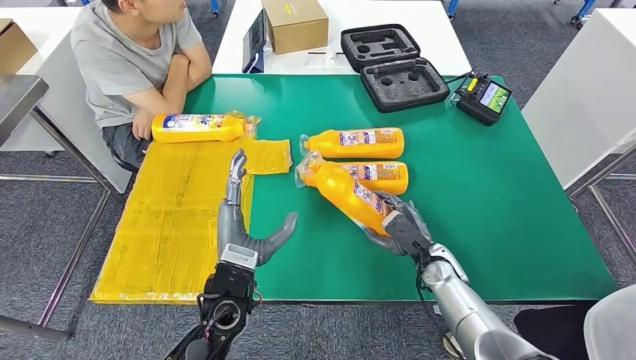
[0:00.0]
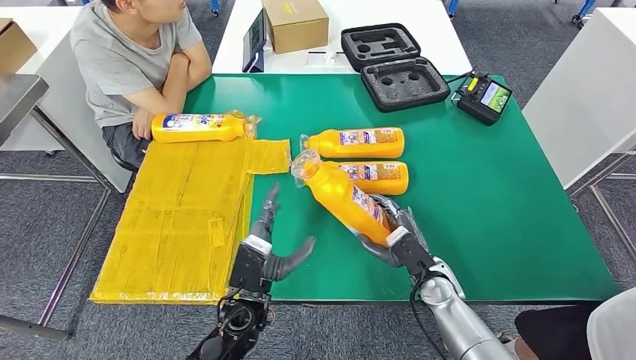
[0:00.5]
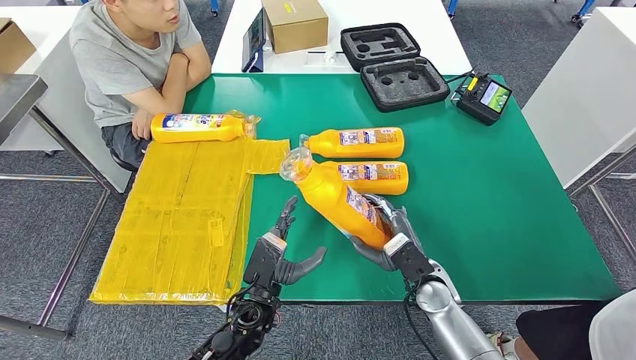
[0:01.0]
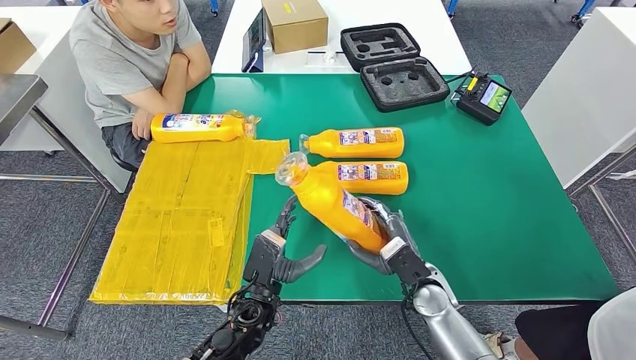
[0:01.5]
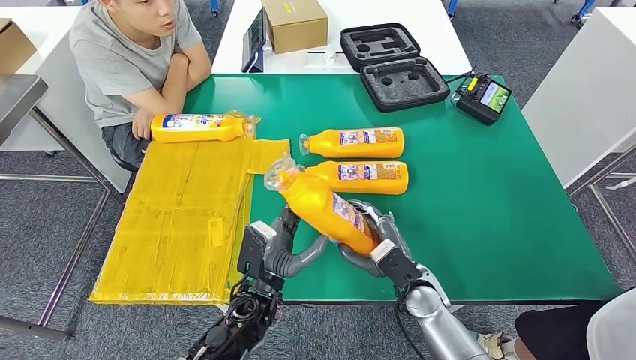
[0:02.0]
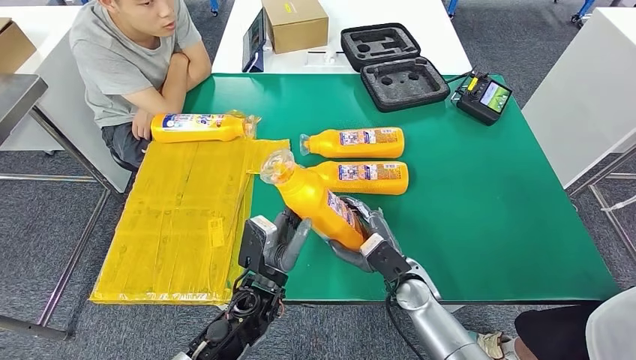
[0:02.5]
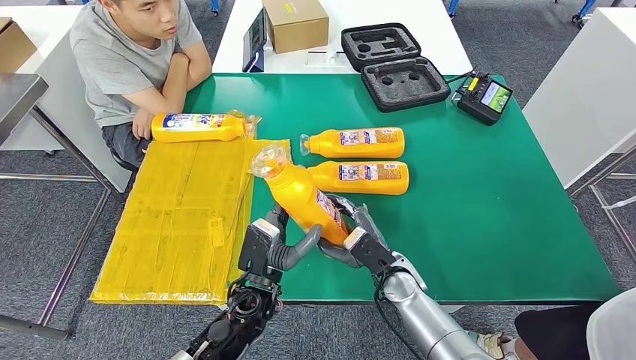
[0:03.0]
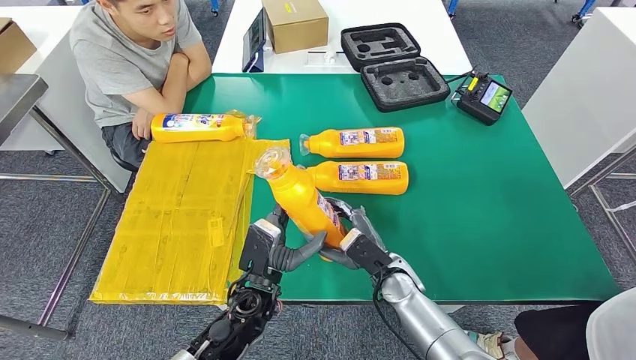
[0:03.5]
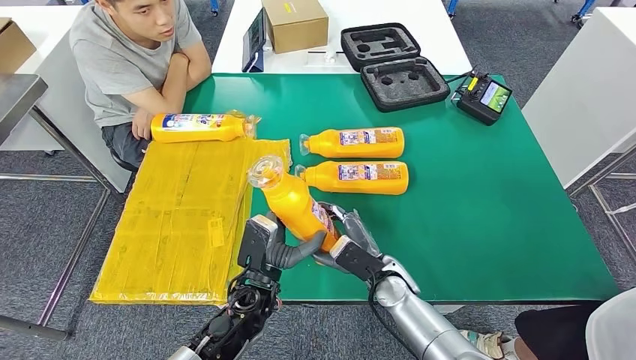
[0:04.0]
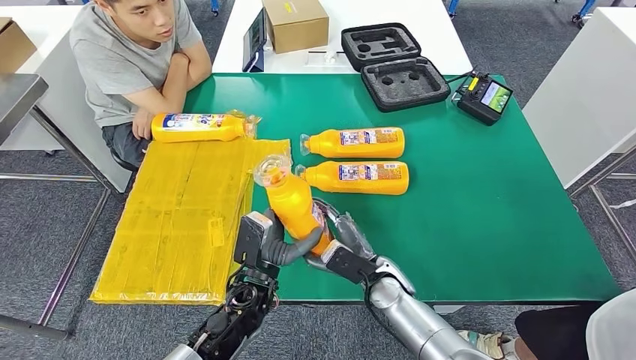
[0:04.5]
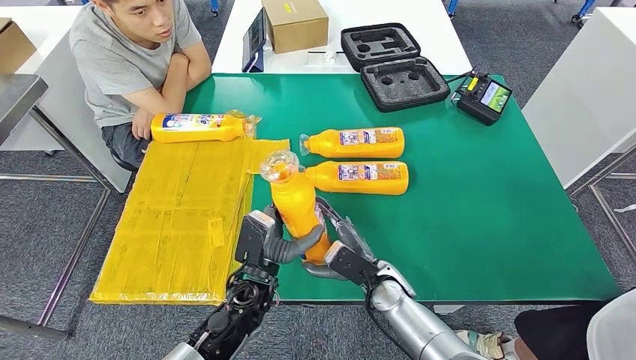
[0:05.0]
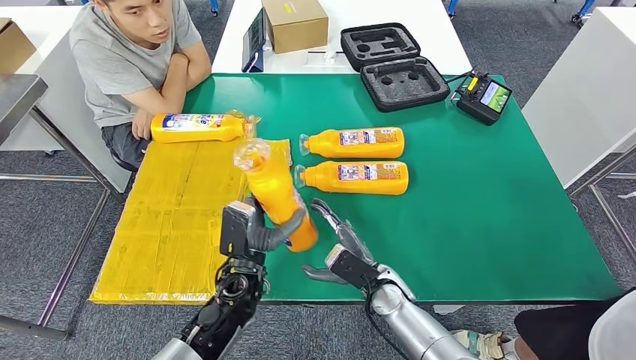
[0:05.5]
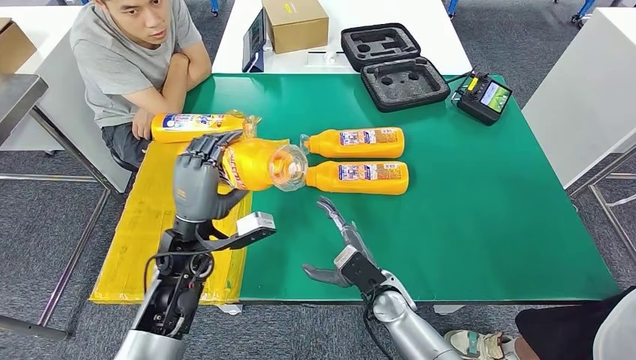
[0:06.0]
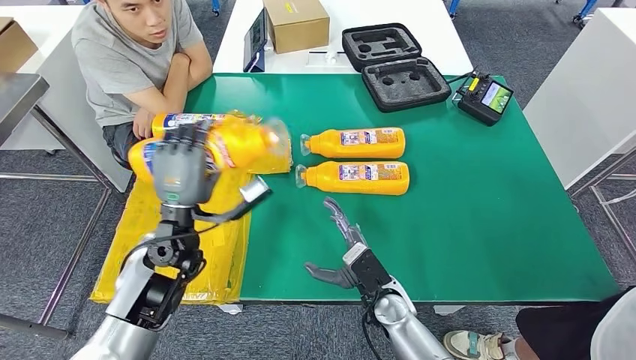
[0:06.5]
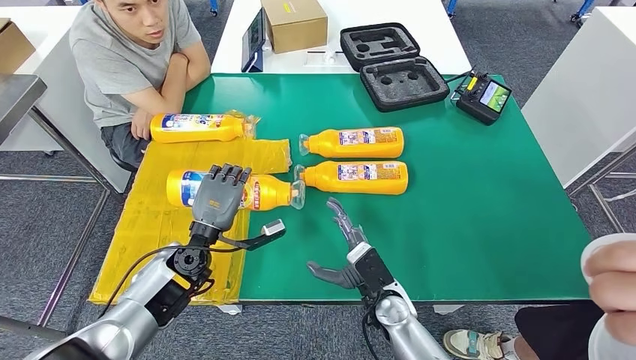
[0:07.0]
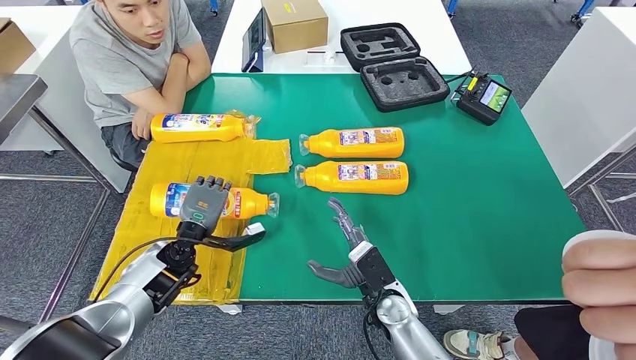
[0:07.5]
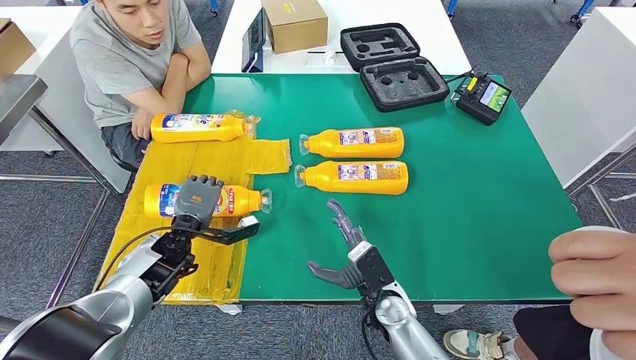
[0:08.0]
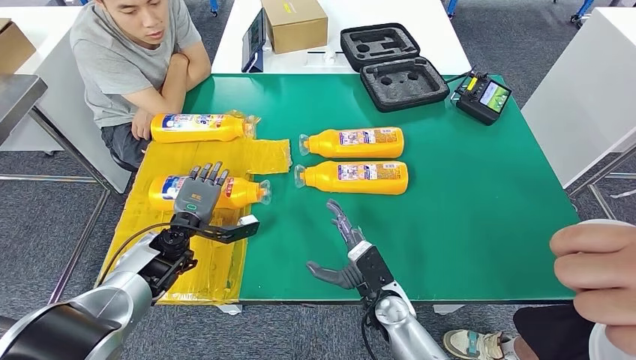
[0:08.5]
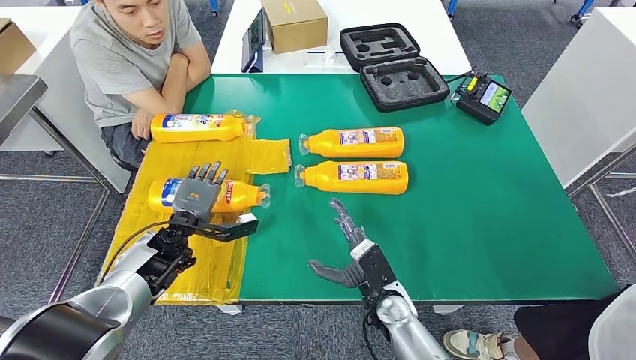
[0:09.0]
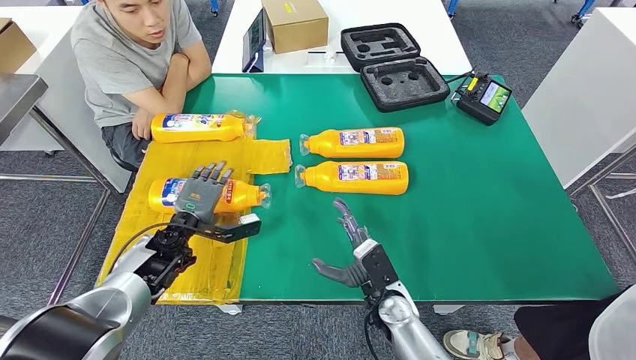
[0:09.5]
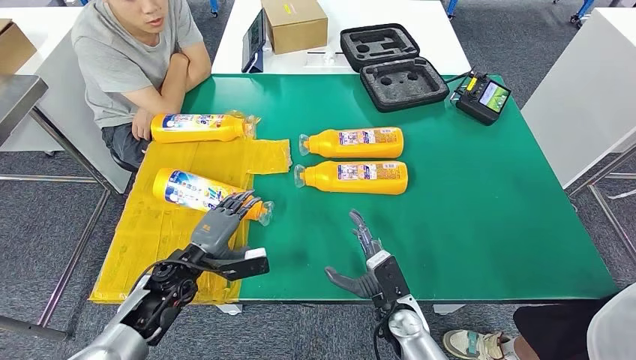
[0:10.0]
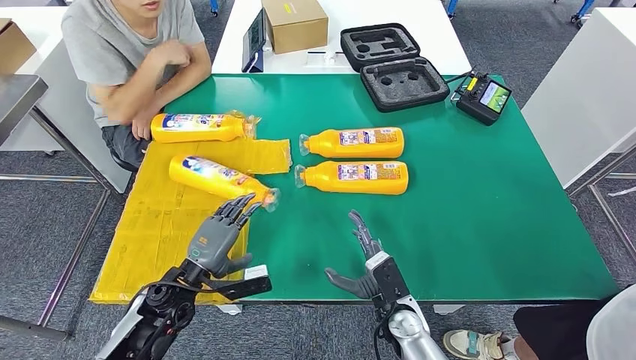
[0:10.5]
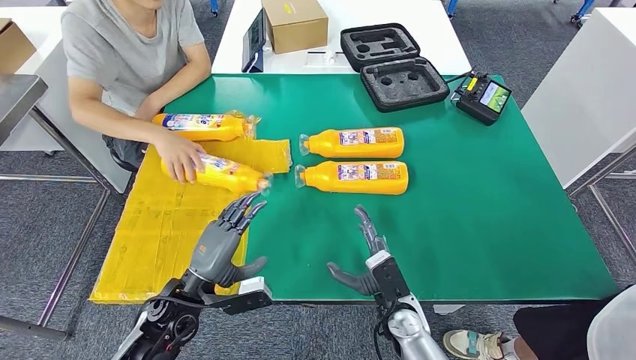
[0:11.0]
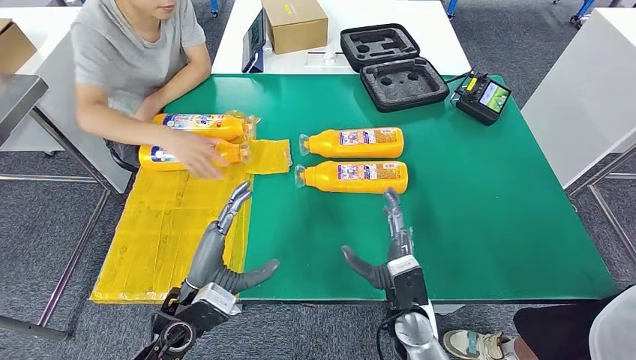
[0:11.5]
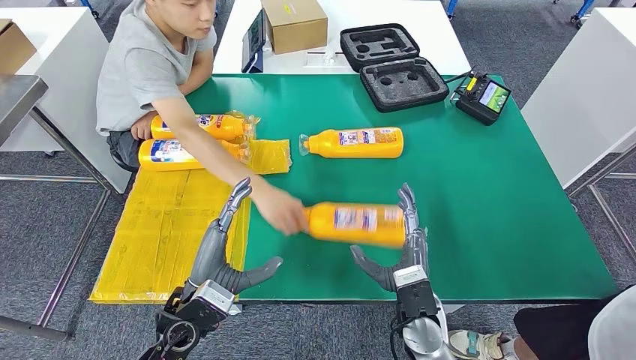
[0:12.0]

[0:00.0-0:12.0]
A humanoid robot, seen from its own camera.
Step, 0.0 to 5.0 s: Pick up the fast-moving consumer goods bottle from the table.
Step, 5.5 to 9.5 s: Flip the fast-moving consumer goods bottle to the front side.
0.0 to 2.0 s: The right hand changes place by about 5 cm; the left hand shifts roughly 5 cm downward.
2.0 to 4.0 s: The right hand shifts roughly 5 cm to the left.
4.0 to 6.0 s: The left hand shifts about 15 cm to the left and upward.
6.0 to 8.0 s: The left hand is displaced downward and forward by some 10 cm.
8.0 to 10.0 s: The left hand heads backward, covering about 5 cm.

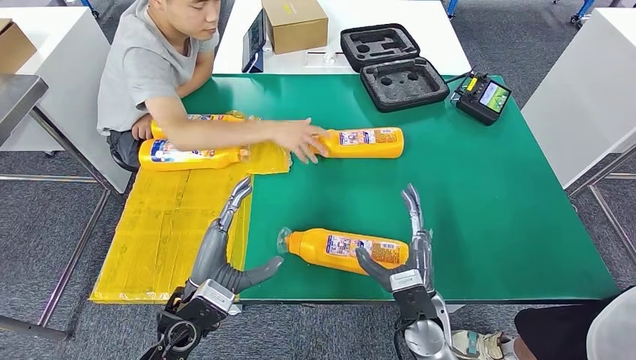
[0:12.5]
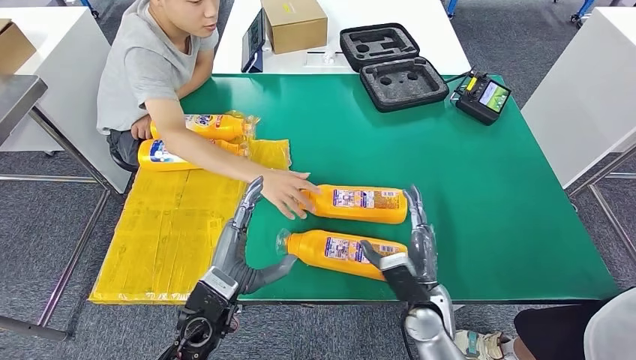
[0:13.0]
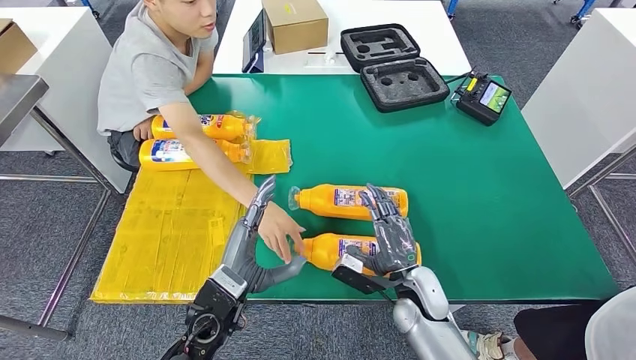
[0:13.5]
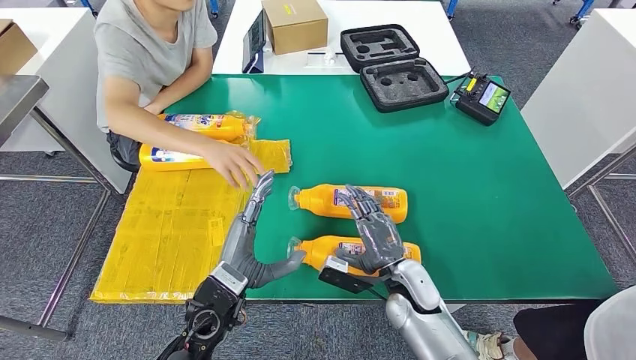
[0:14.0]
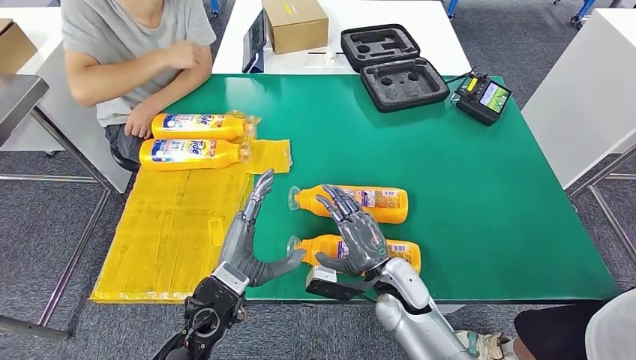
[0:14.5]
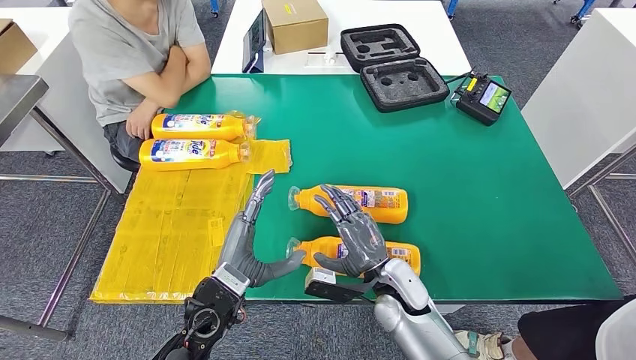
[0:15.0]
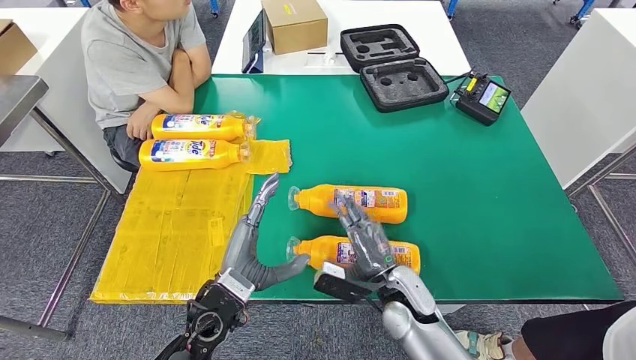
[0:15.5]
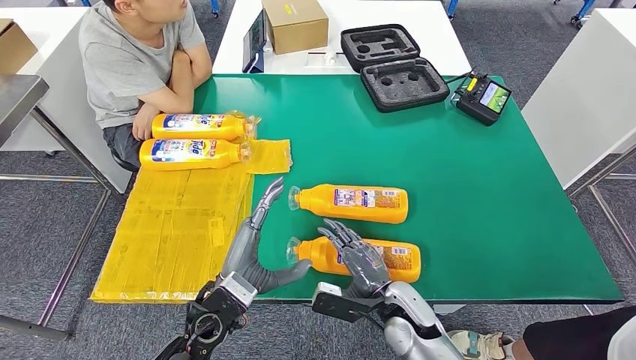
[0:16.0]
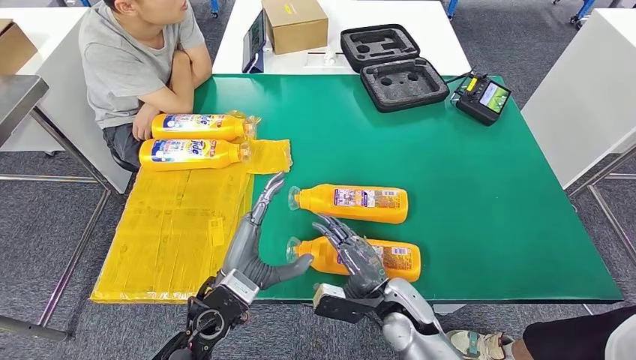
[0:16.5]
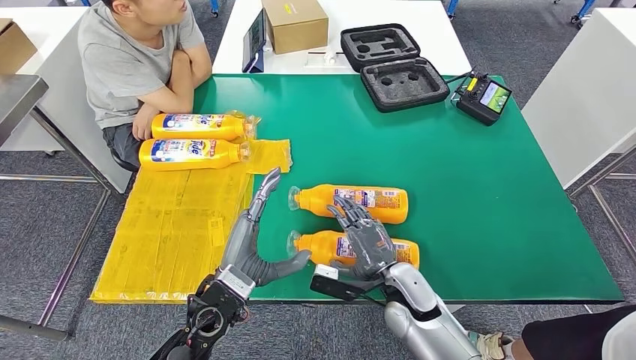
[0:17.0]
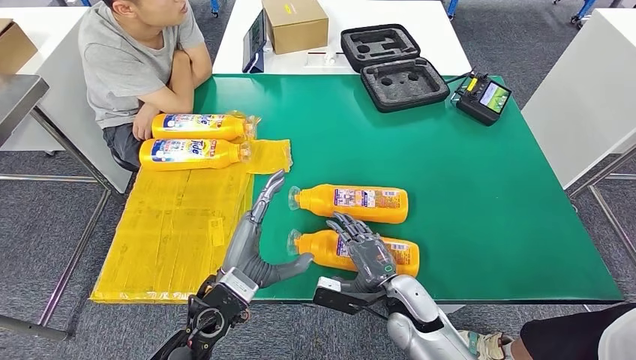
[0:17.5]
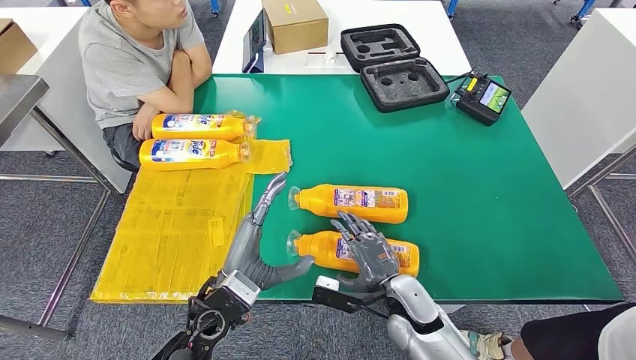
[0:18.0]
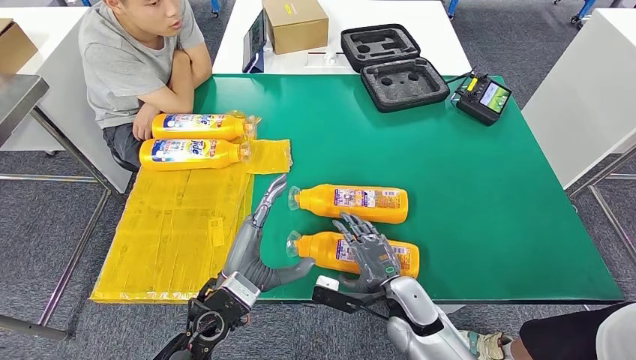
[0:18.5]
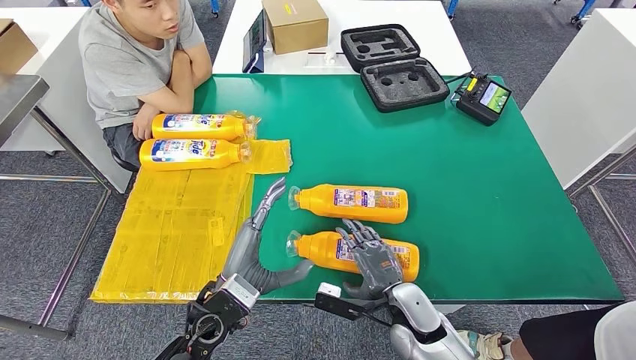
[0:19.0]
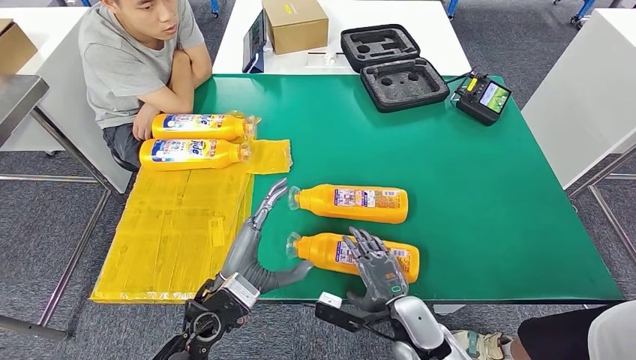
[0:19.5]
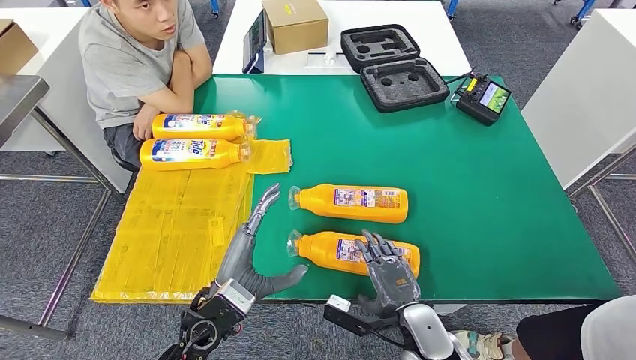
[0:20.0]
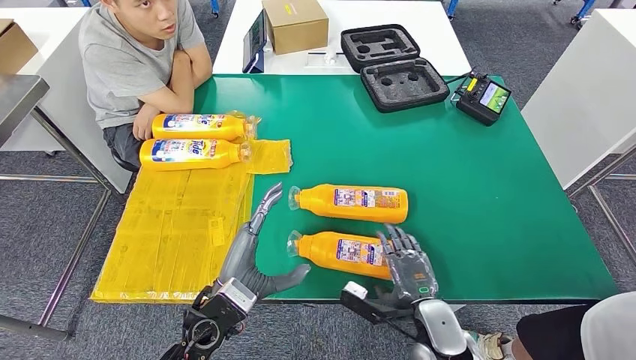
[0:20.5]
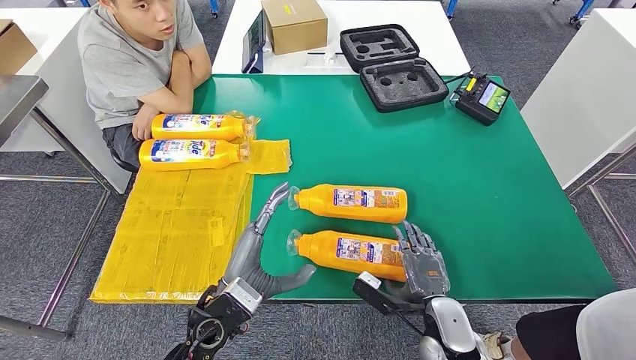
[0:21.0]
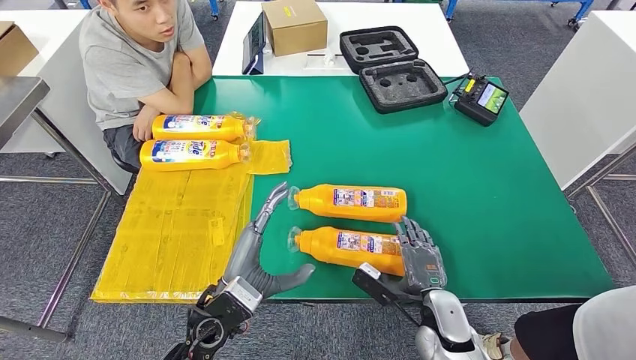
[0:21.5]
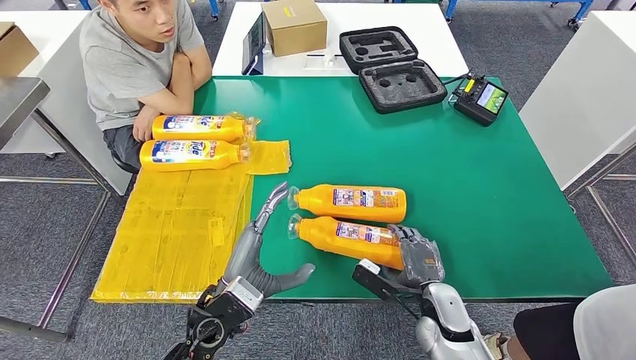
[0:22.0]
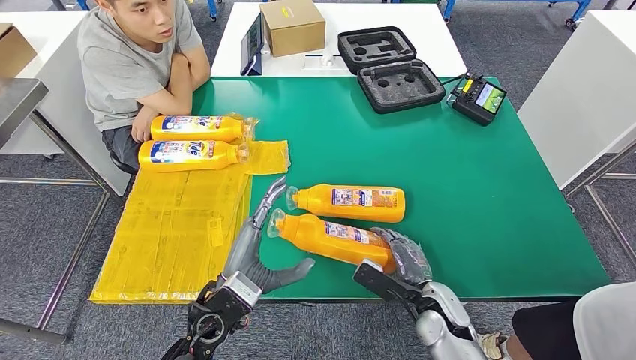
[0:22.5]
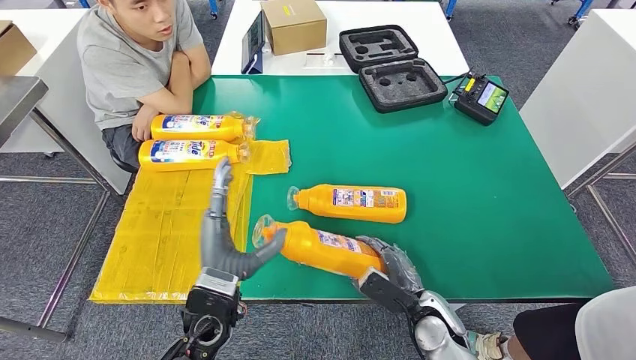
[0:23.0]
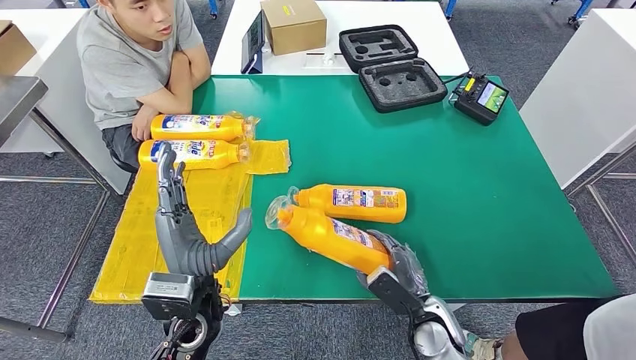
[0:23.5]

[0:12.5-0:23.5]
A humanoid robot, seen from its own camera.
12.5 to 14.5 s: The right hand goes about 5 cm forward.
14.5 to 18.0 s: The hands stay close to where they were, moving slightly.
18.0 to 20.0 s: The right hand moves backward, approximately 5 cm.
20.0 to 21.5 s: The right hand moves approximately 5 cm.
21.5 to 23.5 s: The left hand is displaced upward by approximately 5 cm.
